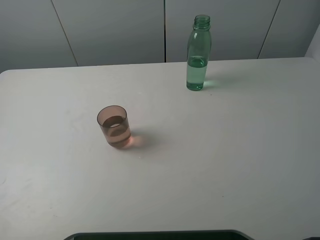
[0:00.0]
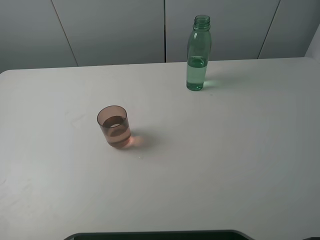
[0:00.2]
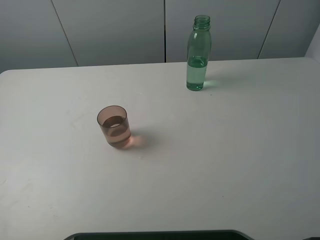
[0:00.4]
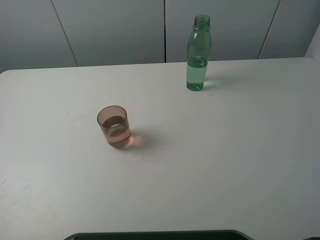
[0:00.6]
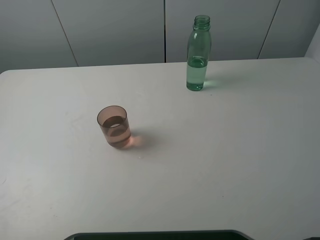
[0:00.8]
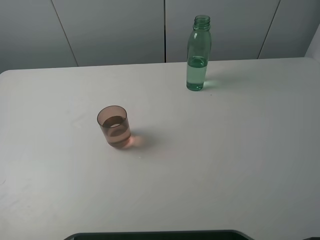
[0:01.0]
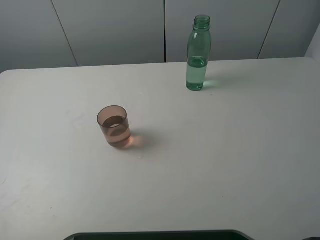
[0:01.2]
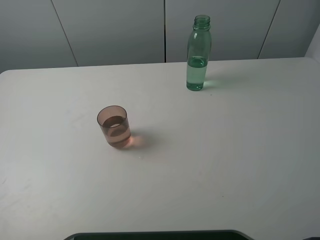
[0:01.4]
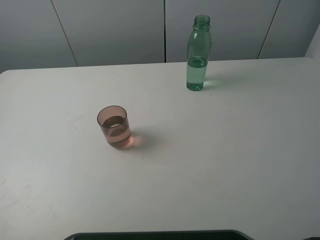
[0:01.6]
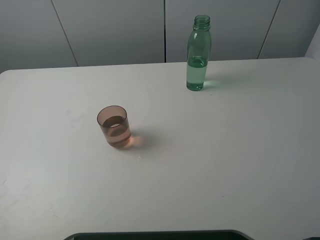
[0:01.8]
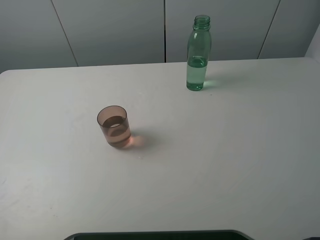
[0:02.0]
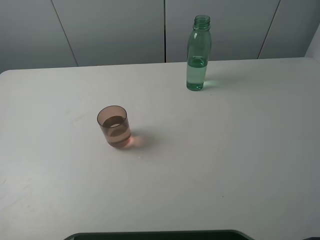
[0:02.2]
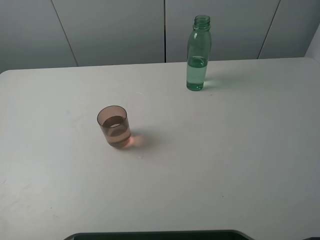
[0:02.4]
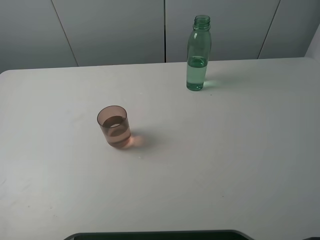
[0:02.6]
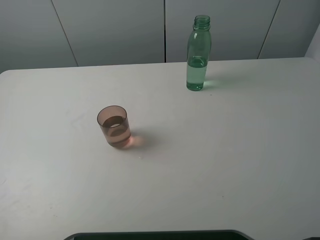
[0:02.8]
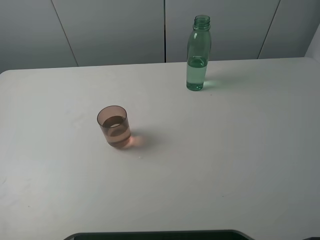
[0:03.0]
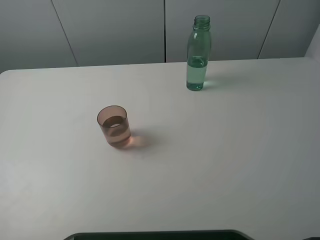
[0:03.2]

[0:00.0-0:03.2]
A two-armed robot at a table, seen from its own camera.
Task of the whole recording: pick up the bottle filled with water and pour it into the pink cup.
1.6 to 3.2 s: Both grippers stay about where they are.

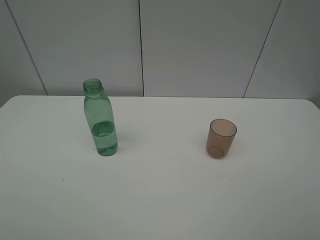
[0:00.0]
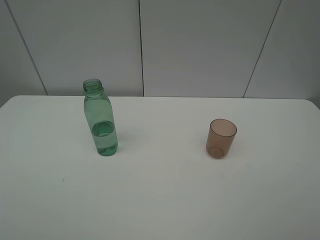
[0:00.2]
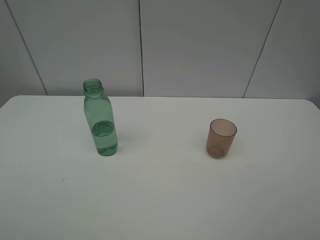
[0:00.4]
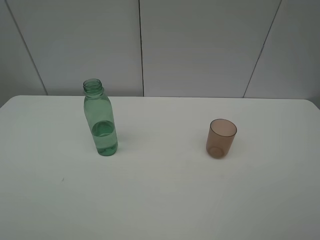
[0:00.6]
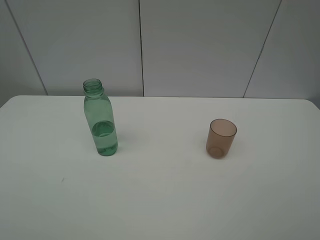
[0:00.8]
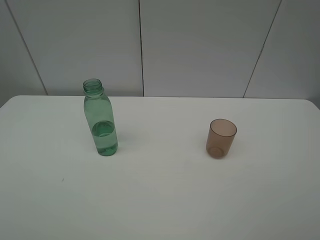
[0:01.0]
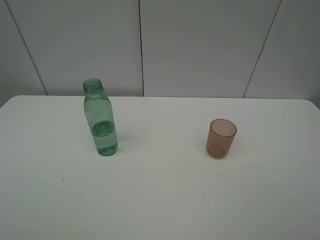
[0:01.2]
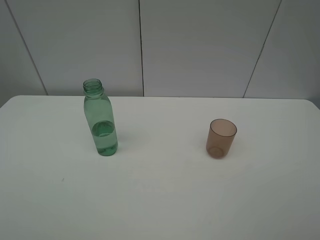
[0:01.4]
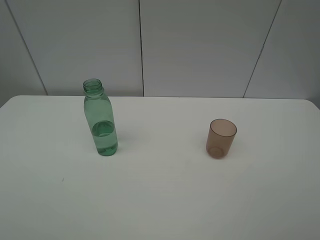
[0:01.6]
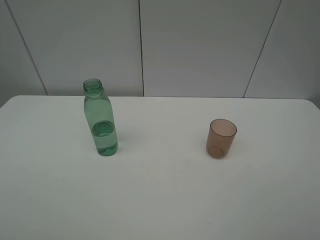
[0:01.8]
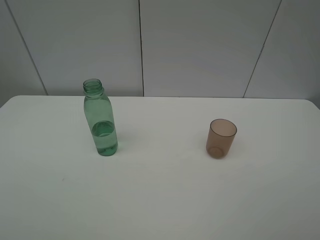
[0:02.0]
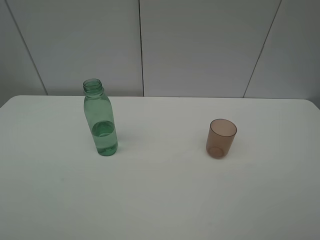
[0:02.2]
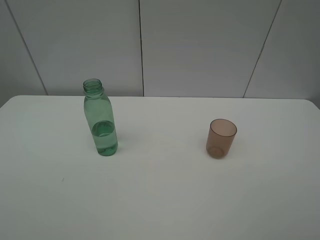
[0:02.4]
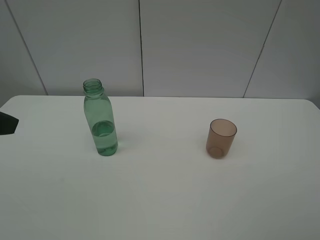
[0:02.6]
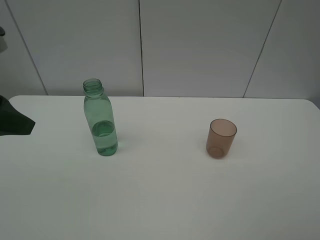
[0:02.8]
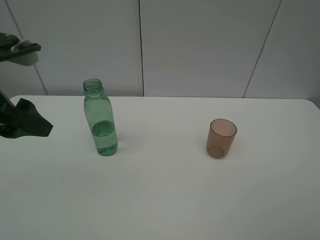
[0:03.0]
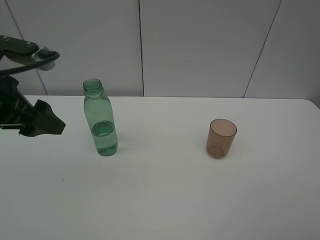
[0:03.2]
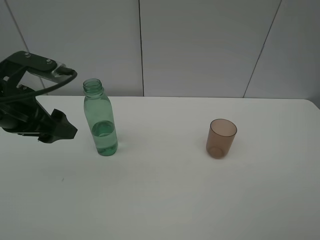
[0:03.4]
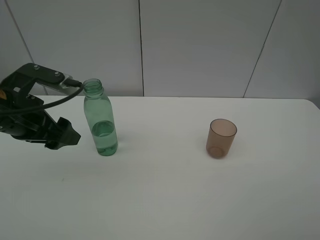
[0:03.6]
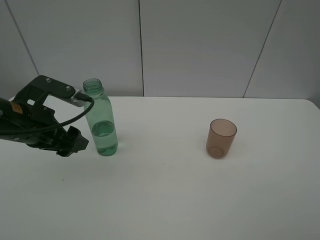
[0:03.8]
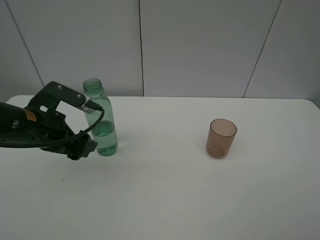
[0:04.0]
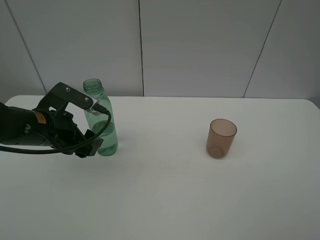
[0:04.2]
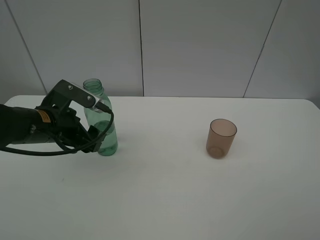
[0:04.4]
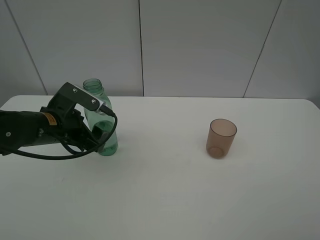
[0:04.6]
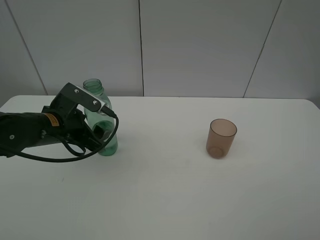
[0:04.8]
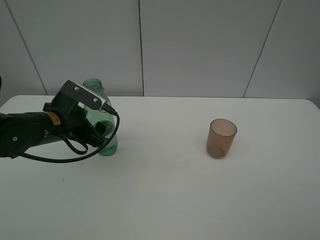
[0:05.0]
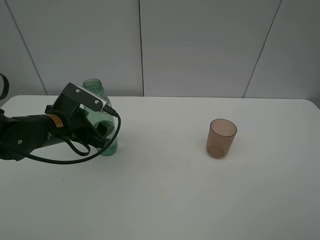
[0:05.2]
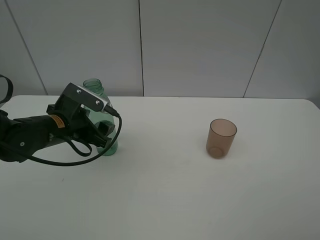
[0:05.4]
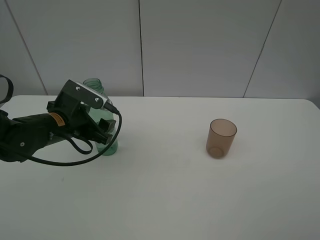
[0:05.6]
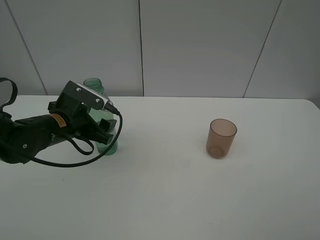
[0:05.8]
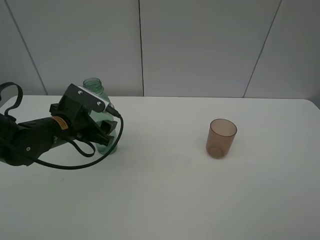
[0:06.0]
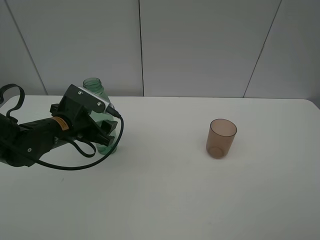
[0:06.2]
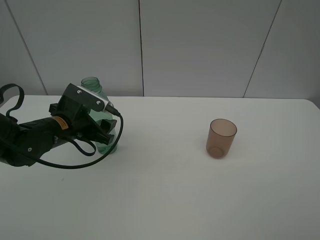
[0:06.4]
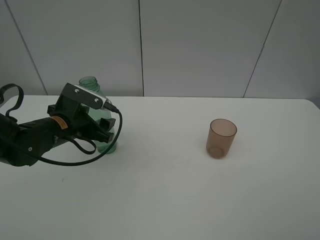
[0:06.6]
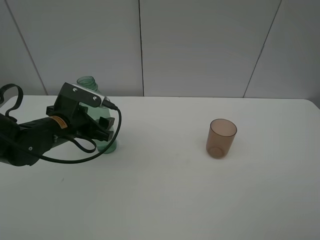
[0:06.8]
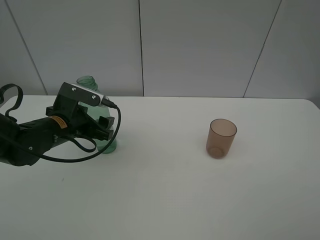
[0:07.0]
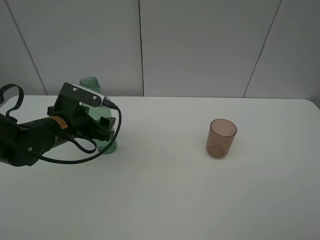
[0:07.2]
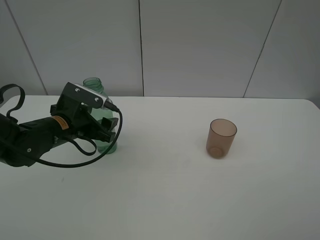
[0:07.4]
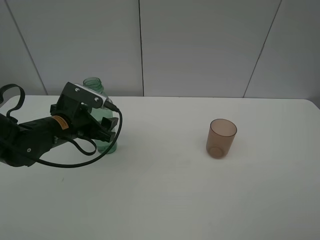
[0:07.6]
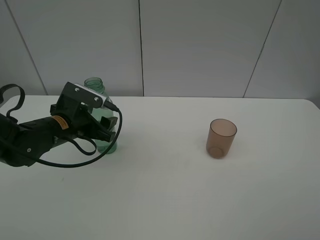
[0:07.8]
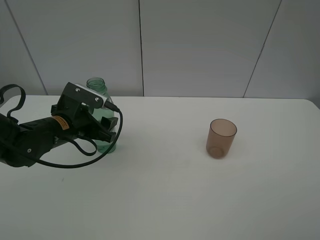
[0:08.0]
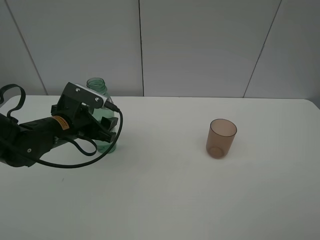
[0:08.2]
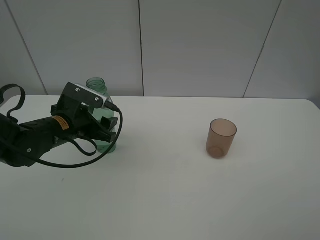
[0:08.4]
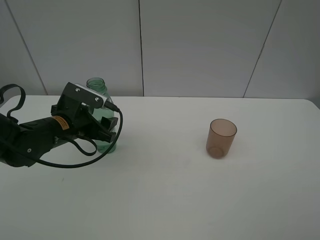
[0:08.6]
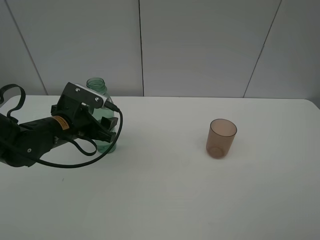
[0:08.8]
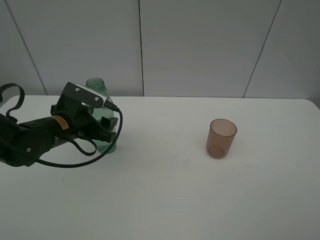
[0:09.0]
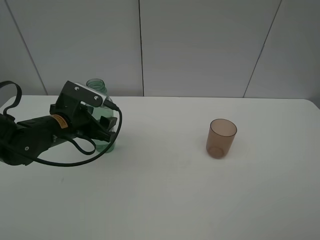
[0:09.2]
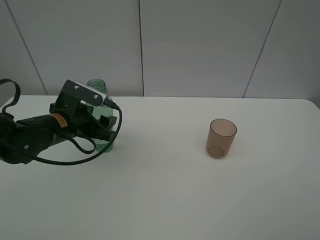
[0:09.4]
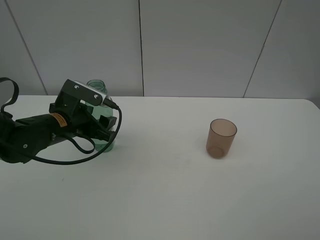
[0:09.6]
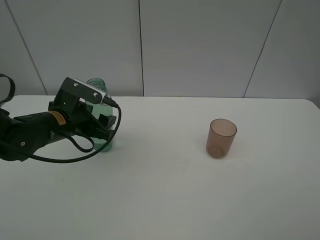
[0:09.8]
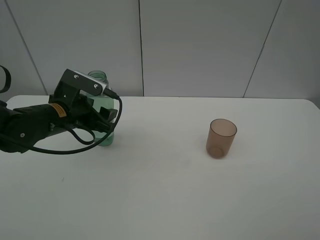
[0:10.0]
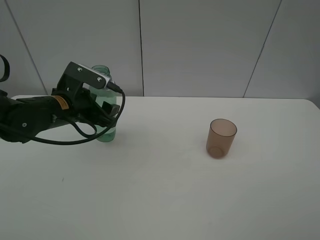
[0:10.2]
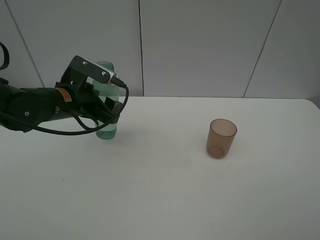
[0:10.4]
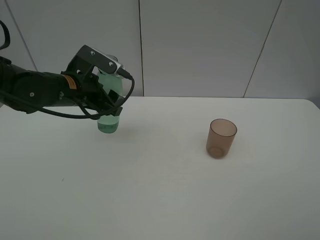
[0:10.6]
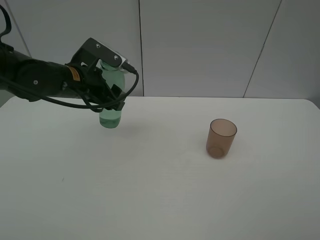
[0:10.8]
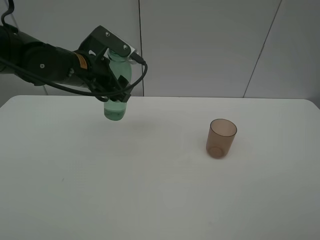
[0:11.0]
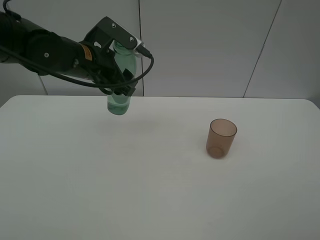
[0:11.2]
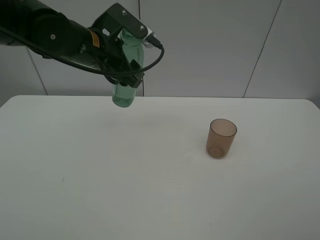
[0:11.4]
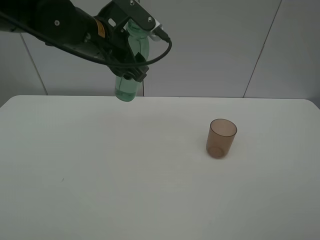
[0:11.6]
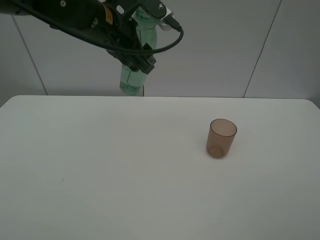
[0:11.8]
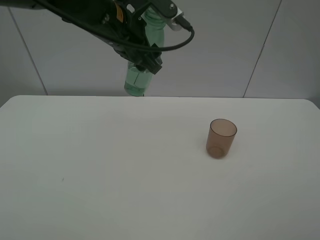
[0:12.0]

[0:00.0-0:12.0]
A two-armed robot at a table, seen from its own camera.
Task of the whole recording: pick up the bottle filled with water and pour it into the pink cup.
Step, 0.0 to 8.4 s: Grasp the green bottle with the left gripper.
0.0 to 1.6 s: The two grippers keep their place.
1.6 to 3.0 s: The left gripper goes some 20 cm forward.
3.0 to 4.4 s: The left gripper heads downward and forward, covering approximately 15 cm.
4.4 to 7.6 s: There are only small adjustments of the grippers.
9.0 to 10.4 s: The left gripper shifts by approximately 5 cm.
10.4 to 12.0 s: The left gripper heads upward and to the right, covering about 15 cm.

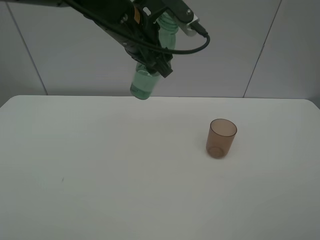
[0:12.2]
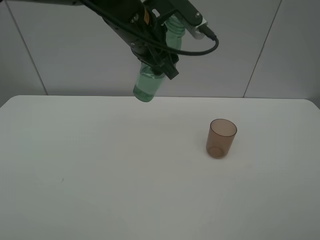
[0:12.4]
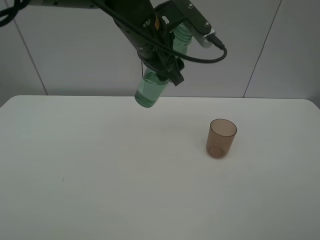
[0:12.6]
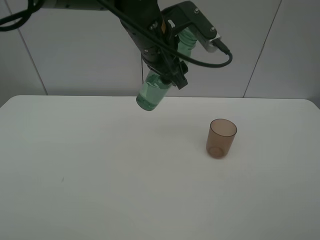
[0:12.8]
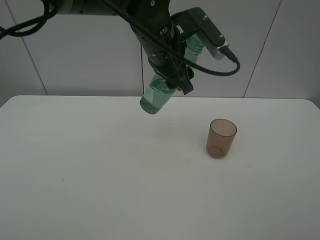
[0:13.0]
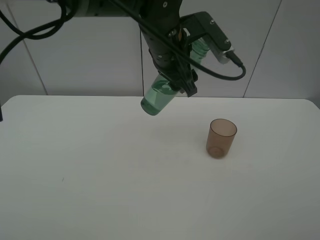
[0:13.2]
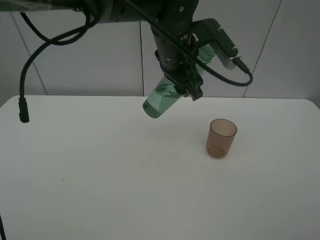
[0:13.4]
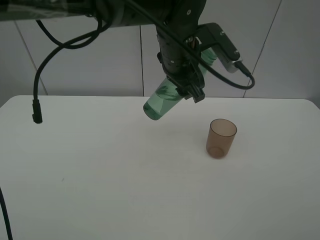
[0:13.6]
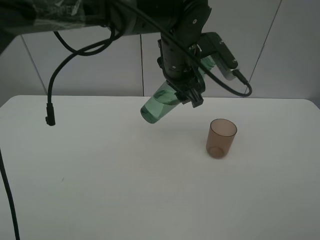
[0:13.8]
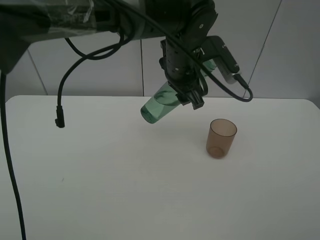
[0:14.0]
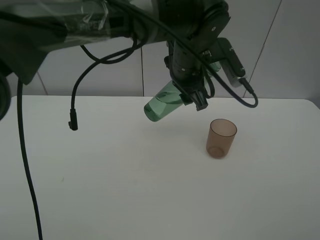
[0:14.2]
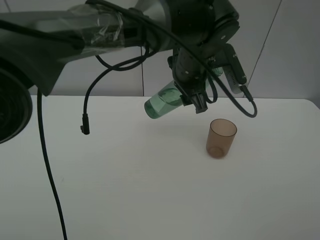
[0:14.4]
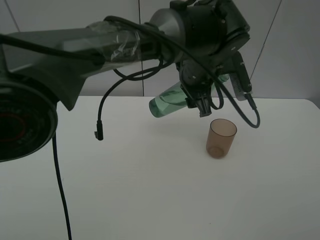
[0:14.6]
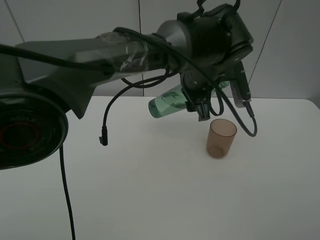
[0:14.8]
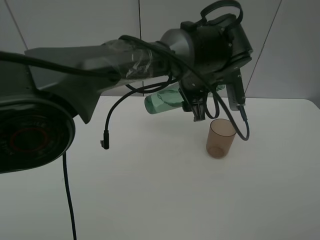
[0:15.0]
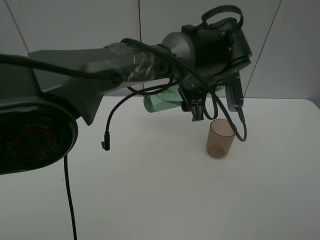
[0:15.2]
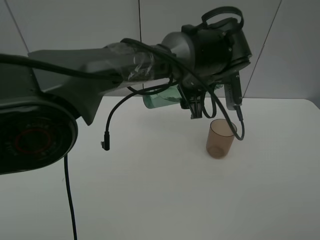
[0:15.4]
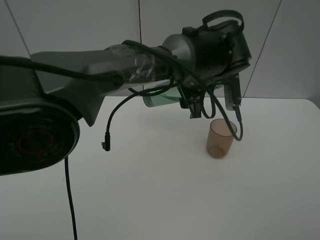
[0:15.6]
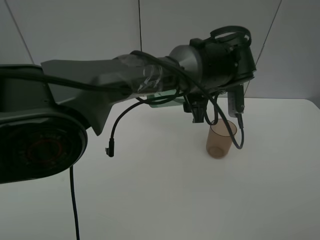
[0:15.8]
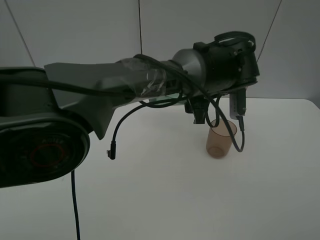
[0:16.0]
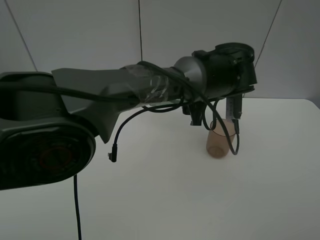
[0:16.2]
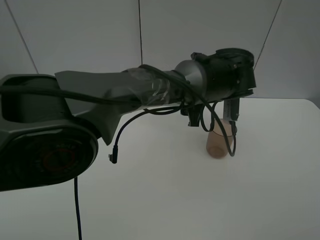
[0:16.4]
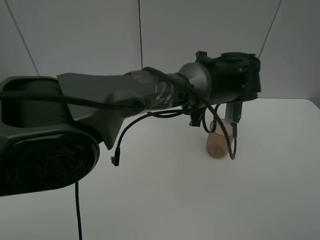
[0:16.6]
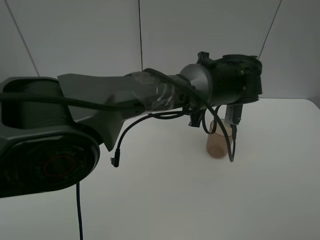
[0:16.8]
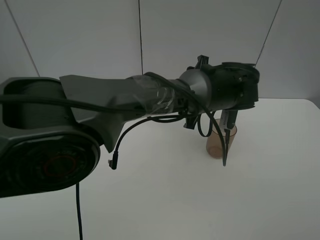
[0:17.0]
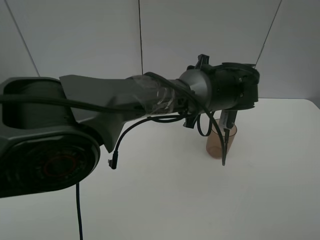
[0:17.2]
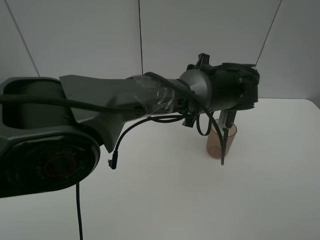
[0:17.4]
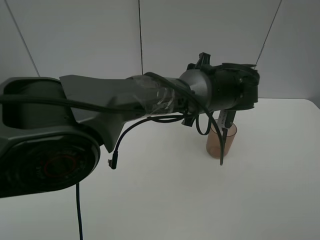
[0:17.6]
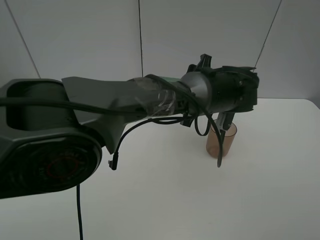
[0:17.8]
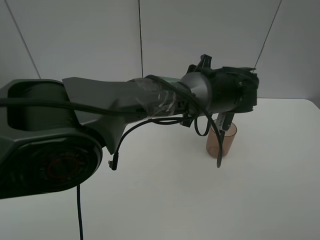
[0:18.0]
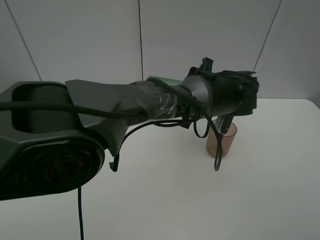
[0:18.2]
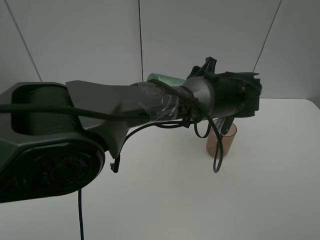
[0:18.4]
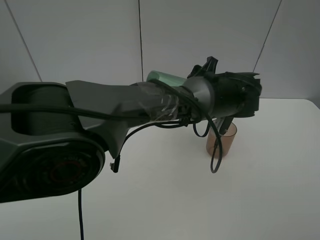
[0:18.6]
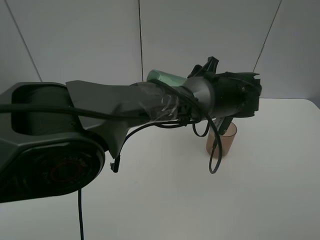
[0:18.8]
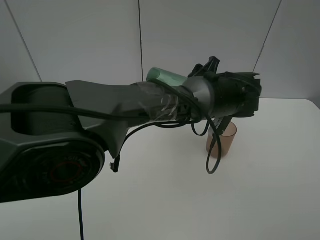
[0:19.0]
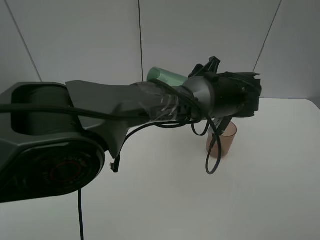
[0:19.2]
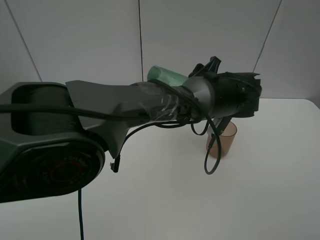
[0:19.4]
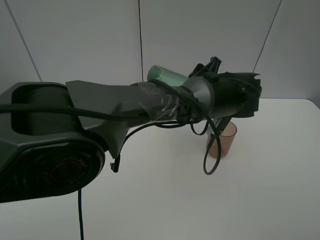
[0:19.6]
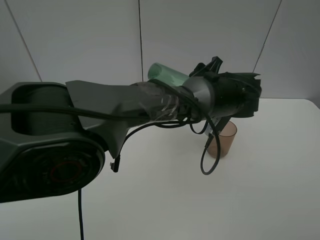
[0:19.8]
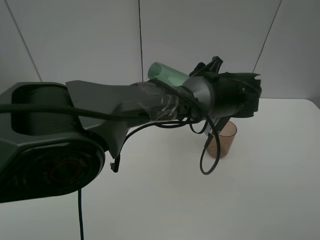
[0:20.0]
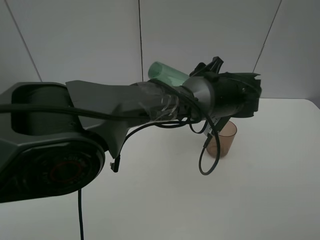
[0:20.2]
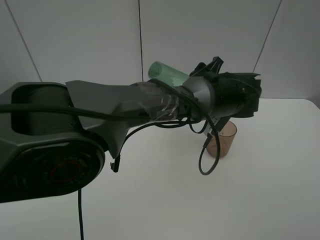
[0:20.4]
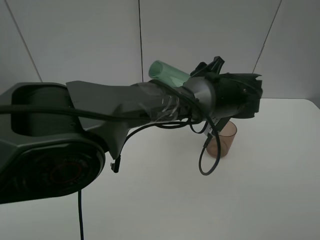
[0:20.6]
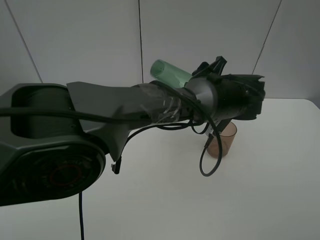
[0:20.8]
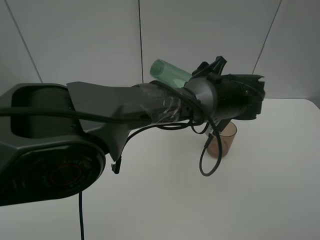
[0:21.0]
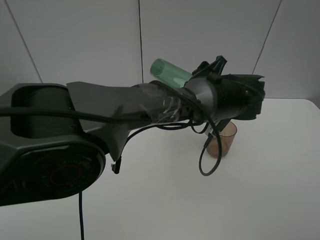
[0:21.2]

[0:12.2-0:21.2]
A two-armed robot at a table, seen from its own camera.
Task of the whole recording: pick up the bottle filled with water and pour it into the pink cup.
12.2 to 13.8 s: The left gripper is displaced to the right by approximately 10 cm.
13.8 to 15.2 s: The left gripper changes place by roughly 5 cm.
16.6 to 18.2 s: The grippers make only small movements.
18.2 to 19.8 s: There are only small adjustments of the grippers.
19.8 to 21.2 s: Neither gripper changes place.
